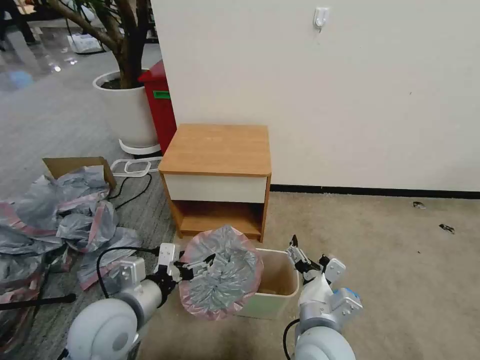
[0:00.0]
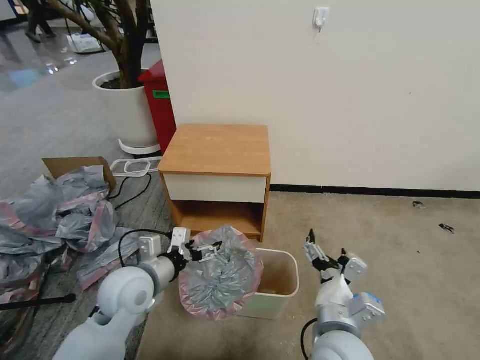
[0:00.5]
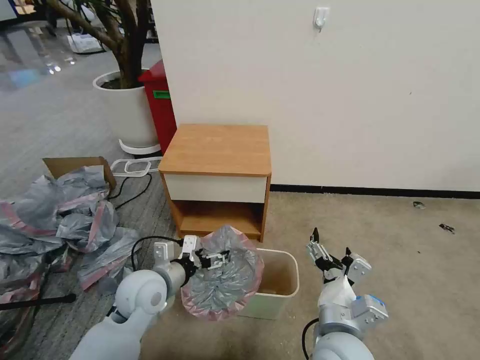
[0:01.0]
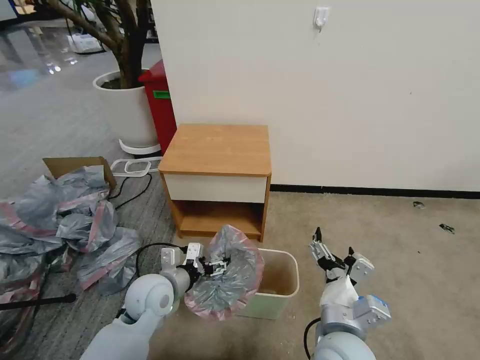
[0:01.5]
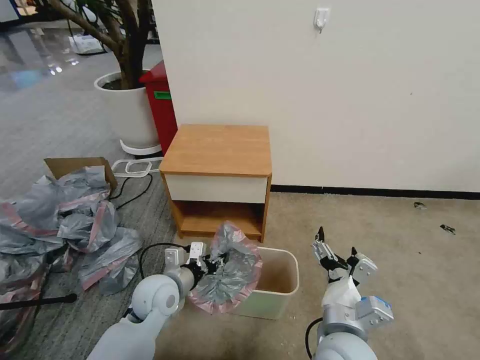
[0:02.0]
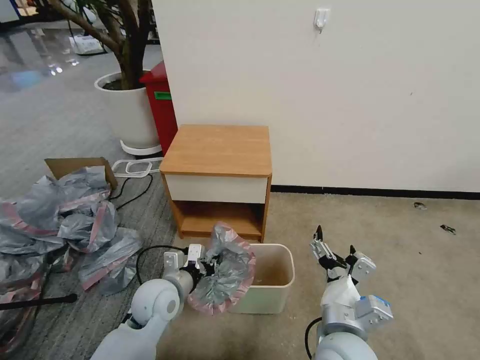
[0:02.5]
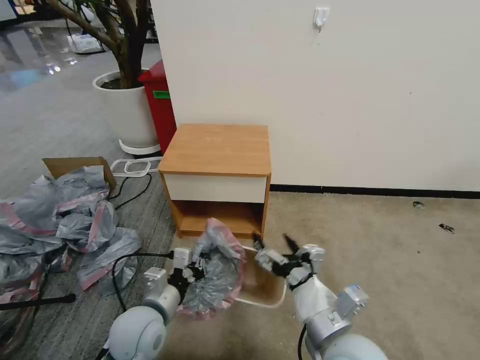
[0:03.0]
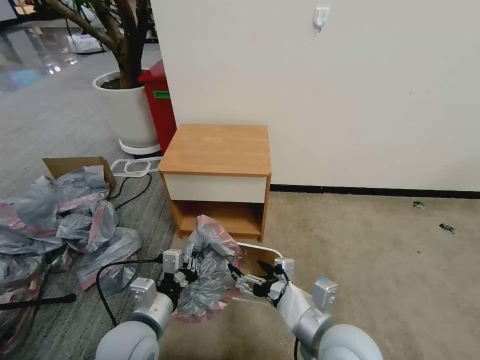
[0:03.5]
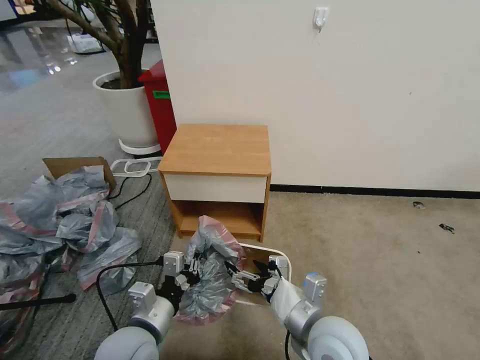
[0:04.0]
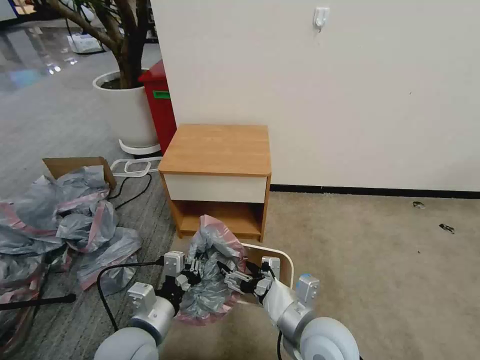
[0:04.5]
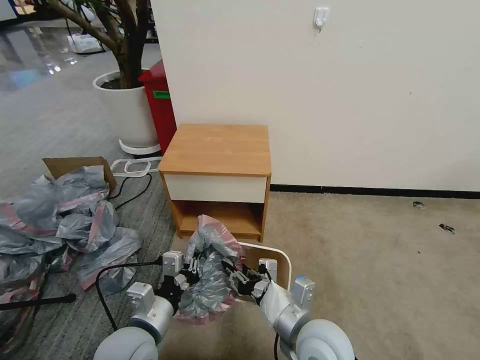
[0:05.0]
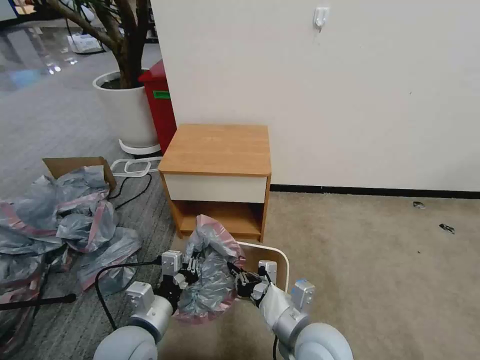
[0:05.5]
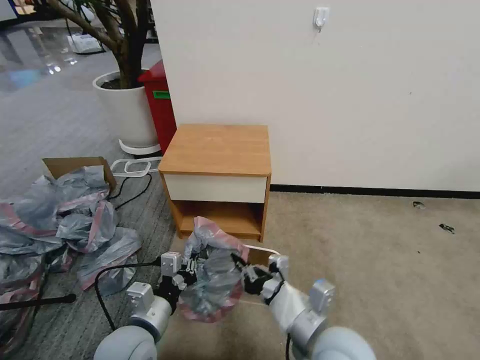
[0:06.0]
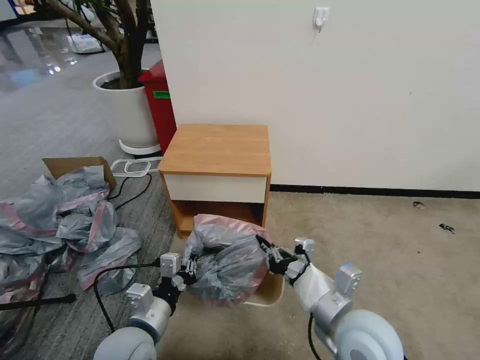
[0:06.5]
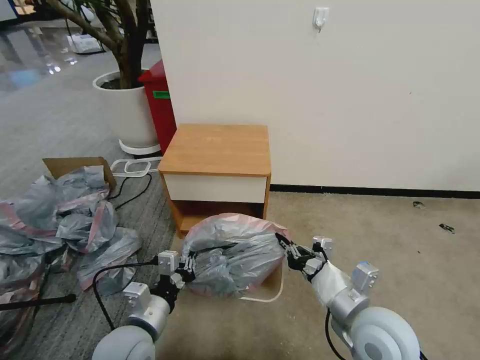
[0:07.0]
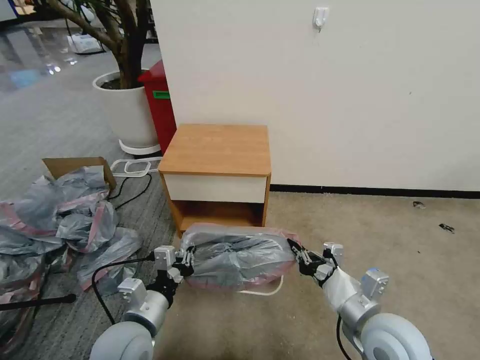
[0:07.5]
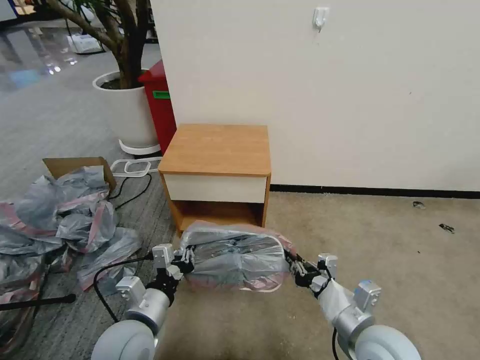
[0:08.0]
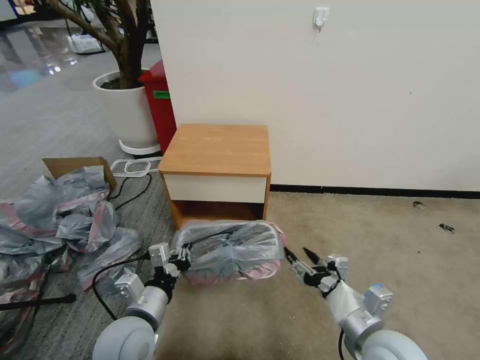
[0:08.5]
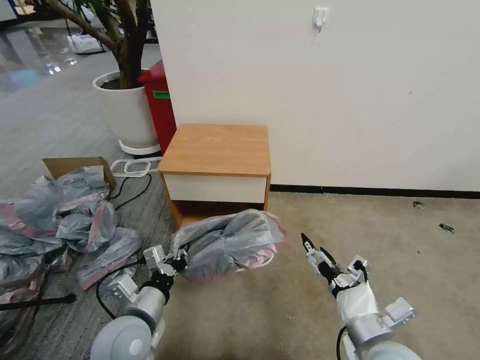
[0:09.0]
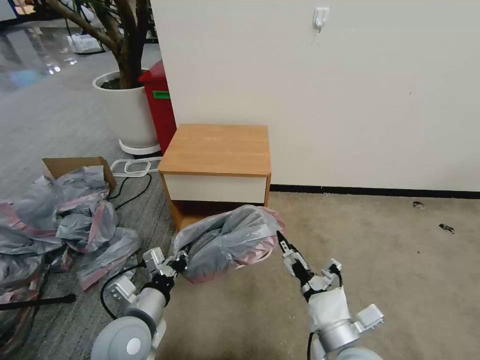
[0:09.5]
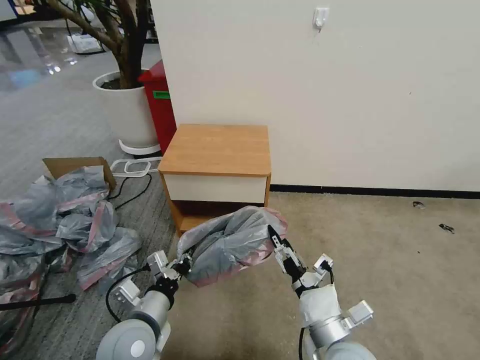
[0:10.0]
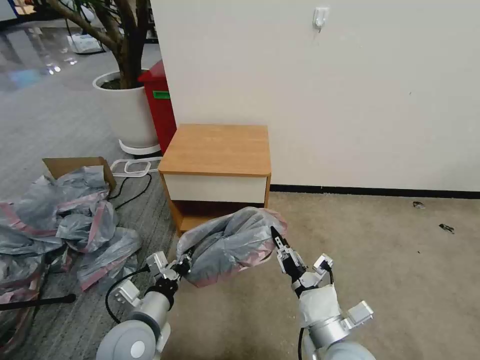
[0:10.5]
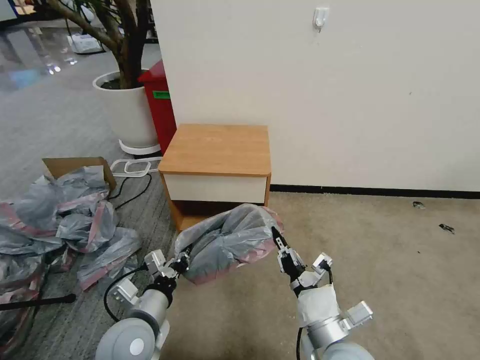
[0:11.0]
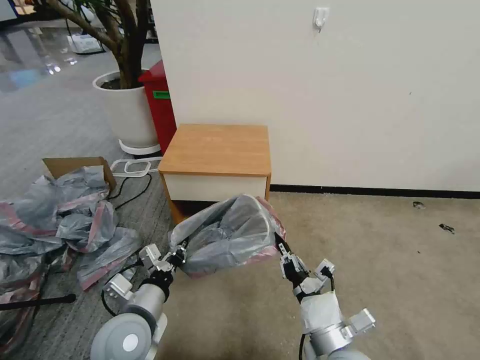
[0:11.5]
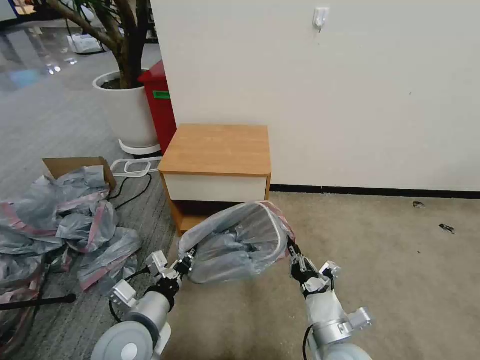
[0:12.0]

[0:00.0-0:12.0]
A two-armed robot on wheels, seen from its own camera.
Task of the whole recording: Pick up the garbage bag from the table and place it over the trash can.
0:00.0 to 0:02.0: The left gripper is displaced downward and forward by some 15 cm, and closes its fingers.
0:02.0 to 0:04.0: The left gripper moves backward, some 10 cm, and closes.
0:04.0 to 0:06.0: The right gripper closes.
0:06.0 to 0:08.0: The right gripper shifts some 10 cm to the right.
0:08.0 to 0:10.0: The right gripper heads to the left, covering some 5 cm, and opens.
0:10.0 to 0:12.0: The right gripper closes.

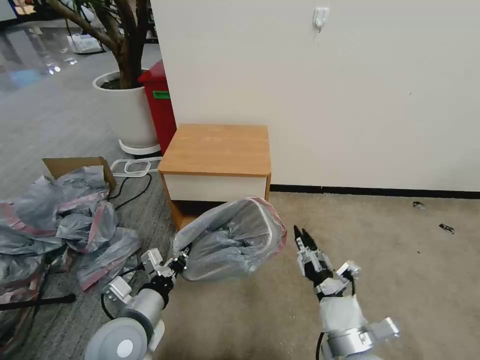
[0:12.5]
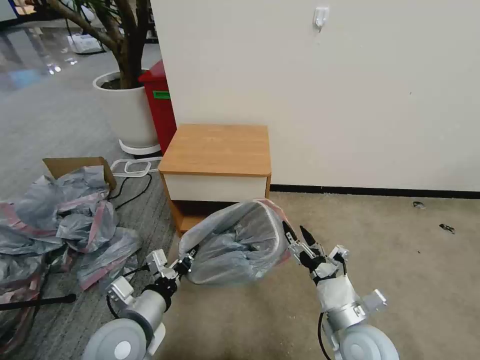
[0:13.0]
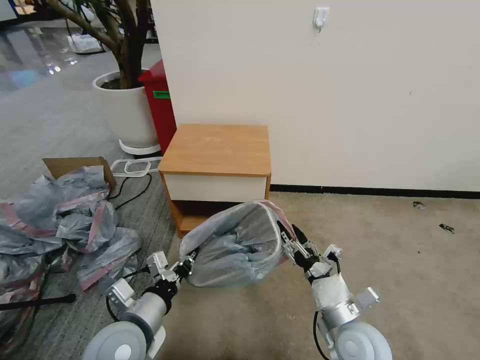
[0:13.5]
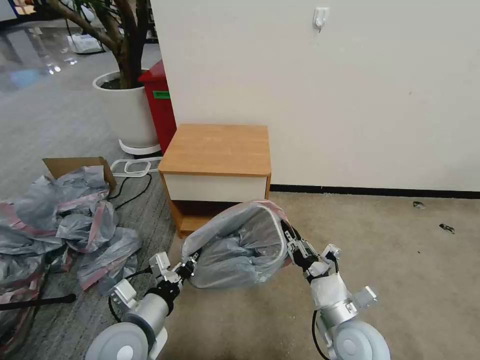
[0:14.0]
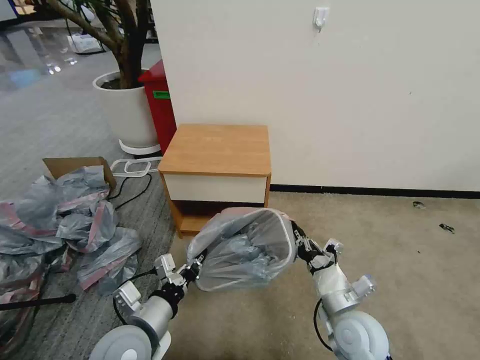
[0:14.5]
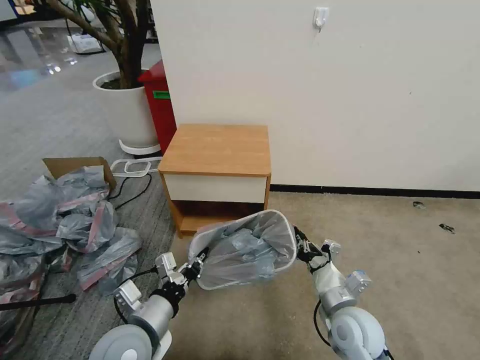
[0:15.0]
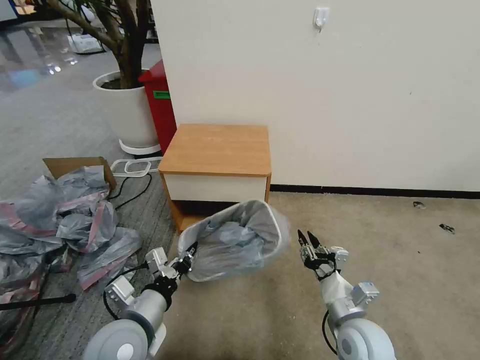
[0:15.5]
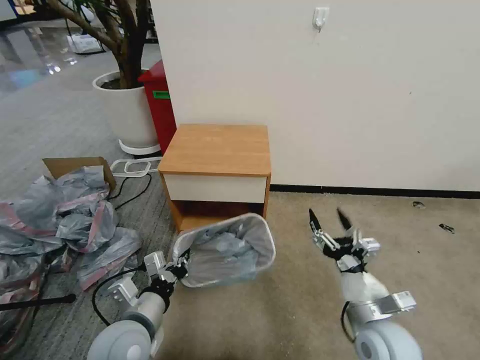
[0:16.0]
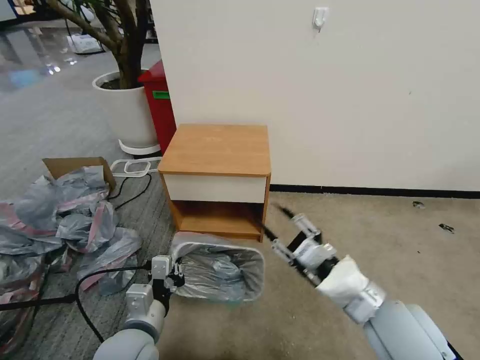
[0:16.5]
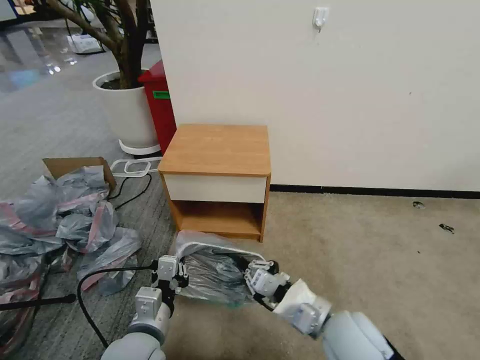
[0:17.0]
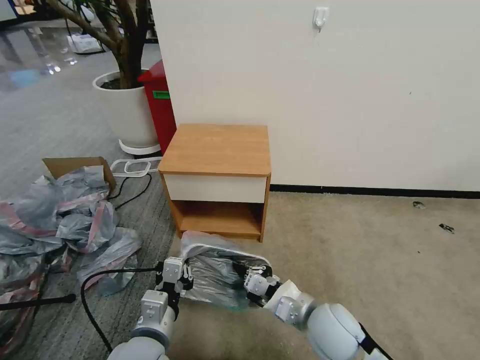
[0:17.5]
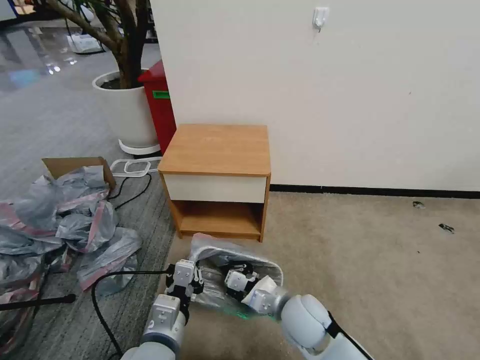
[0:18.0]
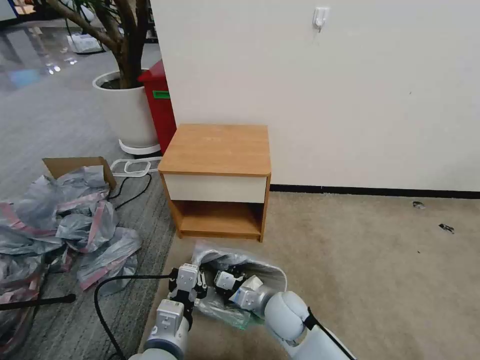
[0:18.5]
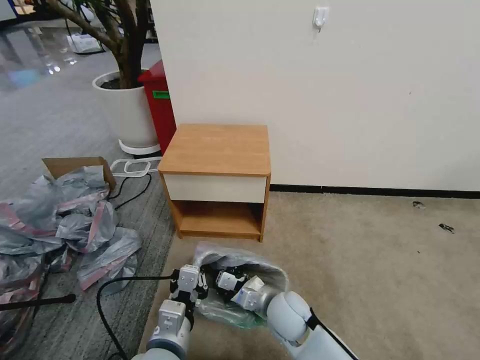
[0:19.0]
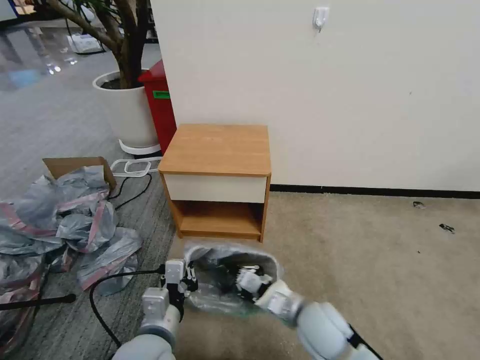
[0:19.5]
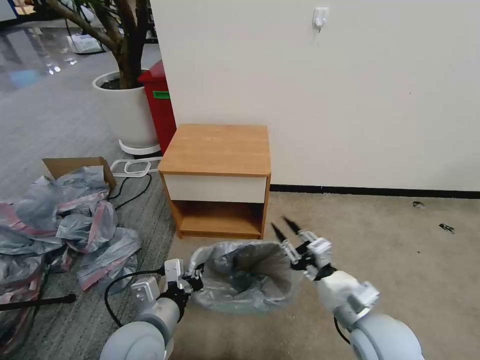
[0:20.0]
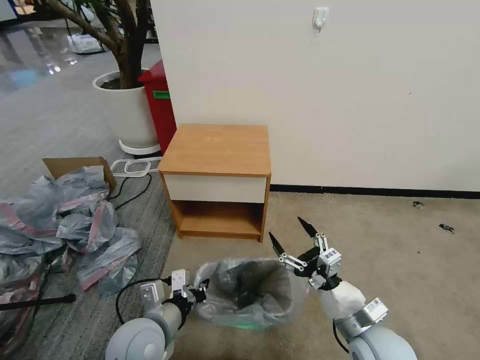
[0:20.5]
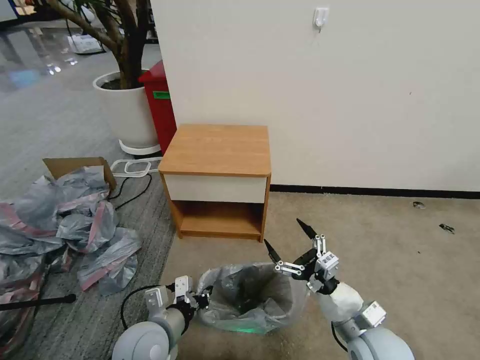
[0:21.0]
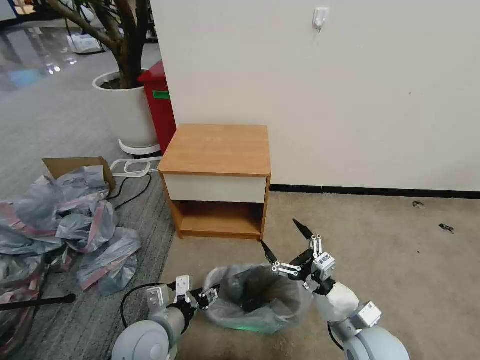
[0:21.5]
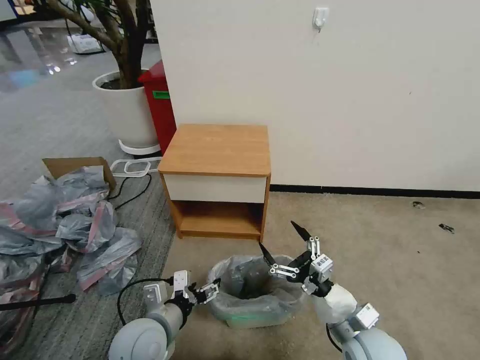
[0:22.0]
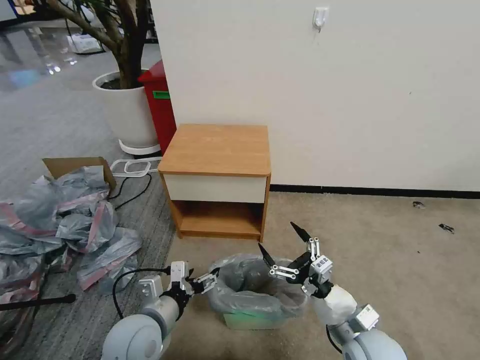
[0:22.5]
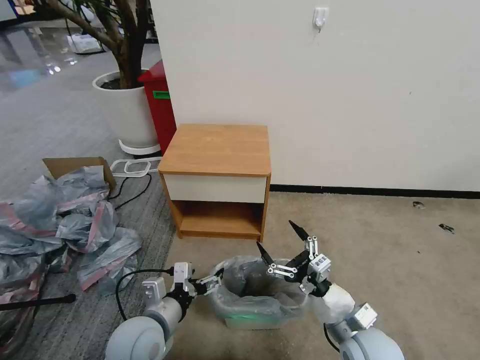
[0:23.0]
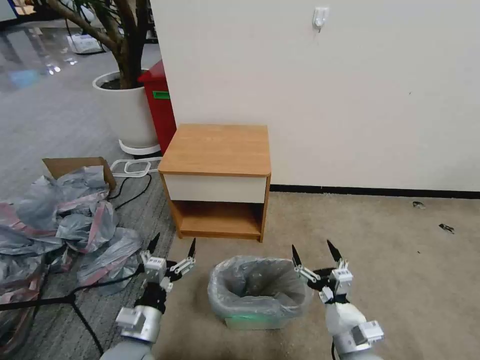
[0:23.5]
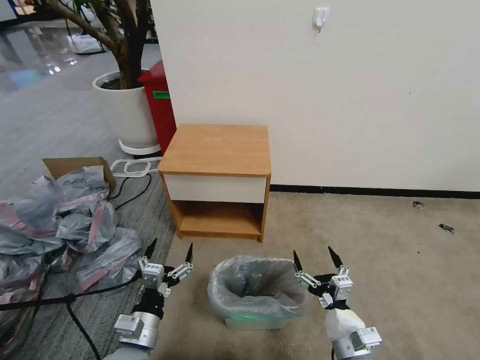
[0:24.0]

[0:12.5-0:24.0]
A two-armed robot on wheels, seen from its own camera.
Task of the whole recording: Pick up the garbage bag from the table and place it over the trash can.
0:12.5 to 0:14.5: The right gripper goes about 10 cm forward, and opens and closes again.
0:14.5 to 0:16.5: The right gripper travels upward by some 15 cm, and opens up.
0:16.5 to 0:18.5: The right gripper is displaced downward, to the left and forward by approximately 25 cm, and closes up, while the left gripper travels to the right by roughly 5 cm.
0:18.5 to 0:20.0: The left gripper ends up approximately 5 cm from where it was, while the right gripper moves to the right, upward and backward, about 20 cm, and opens up.
0:20.0 to 0:22.0: The left gripper changes place by some 5 cm, and opens its fingers; the right gripper shifts by some 5 cm, and opens up.
0:22.0 to 0:24.0: The left gripper moves about 5 cm, while the right gripper is displaced downward by about 5 cm.
